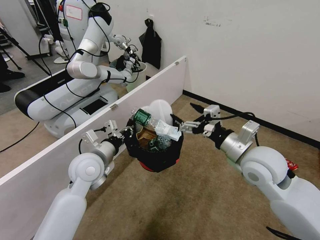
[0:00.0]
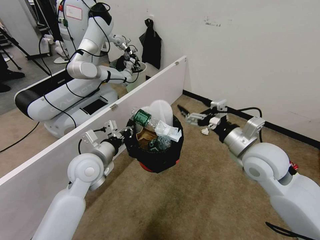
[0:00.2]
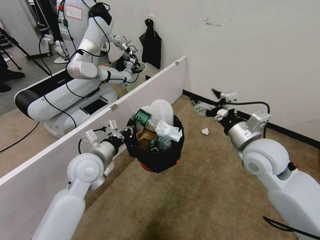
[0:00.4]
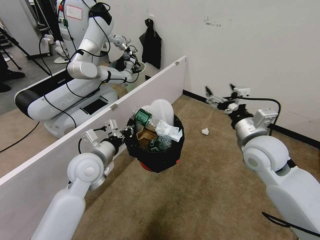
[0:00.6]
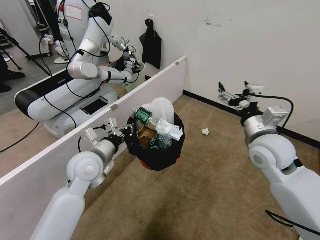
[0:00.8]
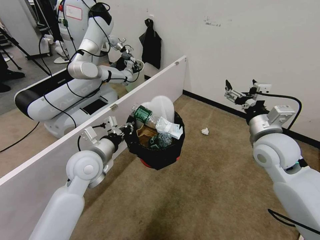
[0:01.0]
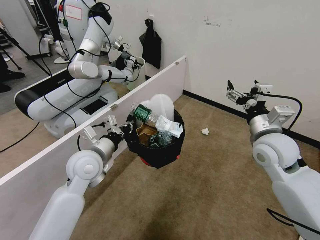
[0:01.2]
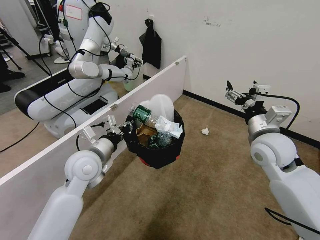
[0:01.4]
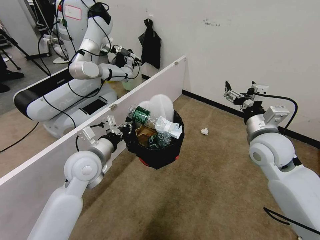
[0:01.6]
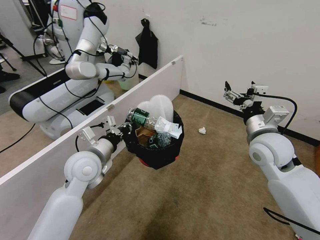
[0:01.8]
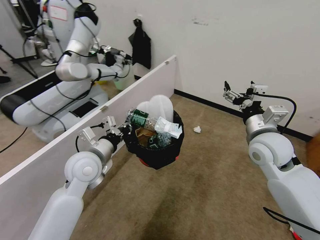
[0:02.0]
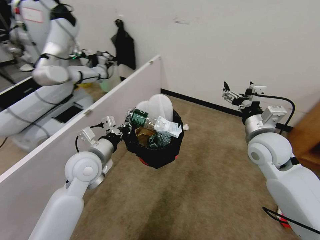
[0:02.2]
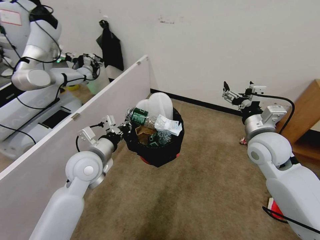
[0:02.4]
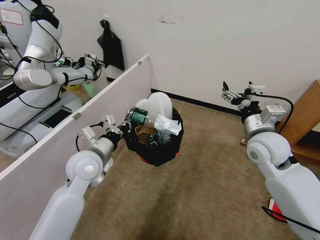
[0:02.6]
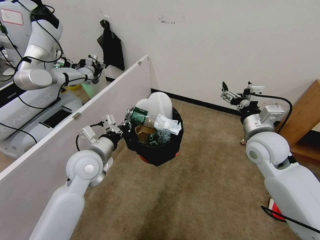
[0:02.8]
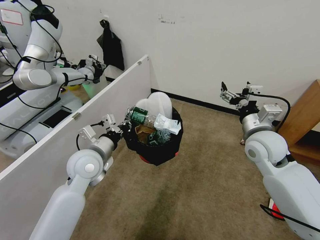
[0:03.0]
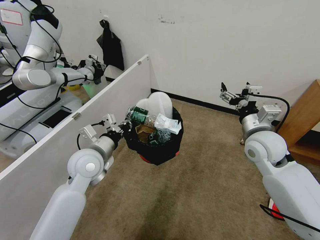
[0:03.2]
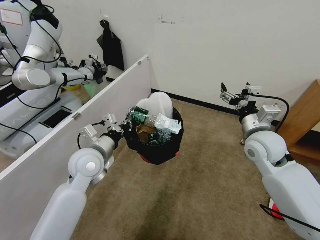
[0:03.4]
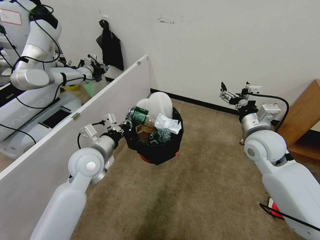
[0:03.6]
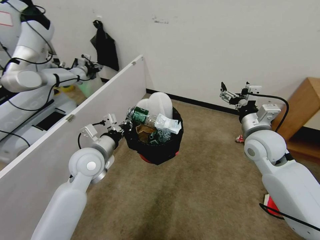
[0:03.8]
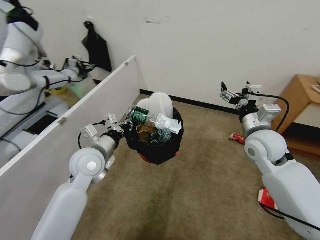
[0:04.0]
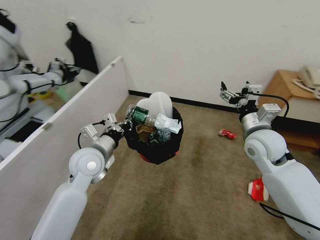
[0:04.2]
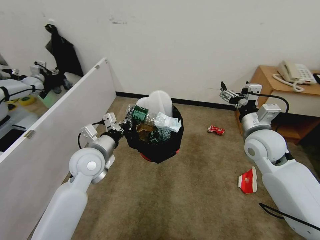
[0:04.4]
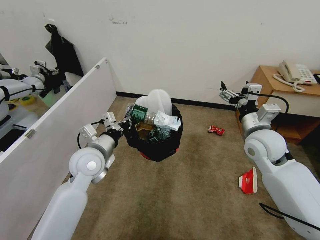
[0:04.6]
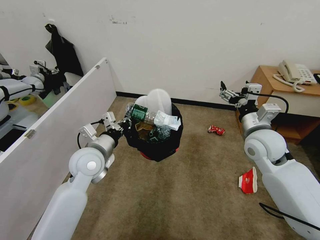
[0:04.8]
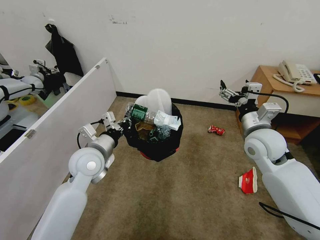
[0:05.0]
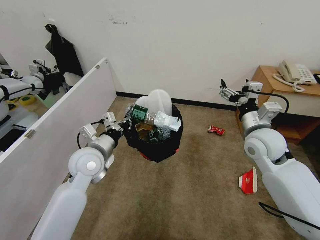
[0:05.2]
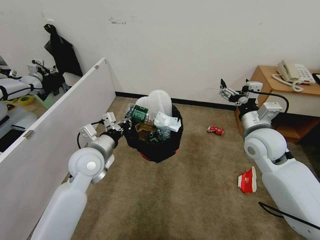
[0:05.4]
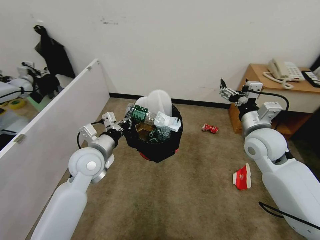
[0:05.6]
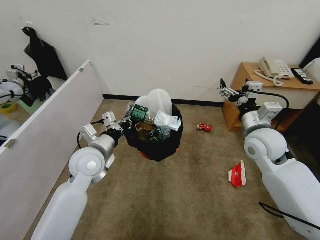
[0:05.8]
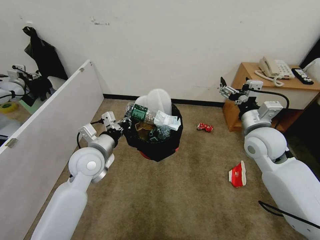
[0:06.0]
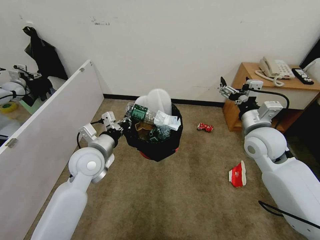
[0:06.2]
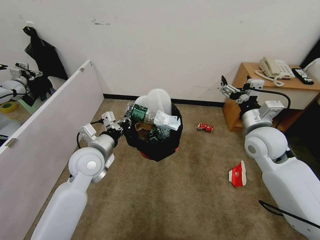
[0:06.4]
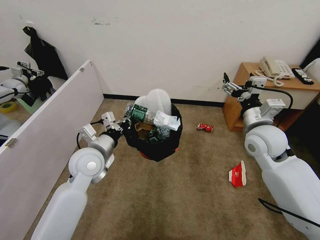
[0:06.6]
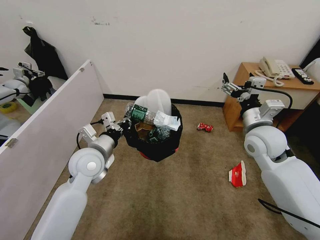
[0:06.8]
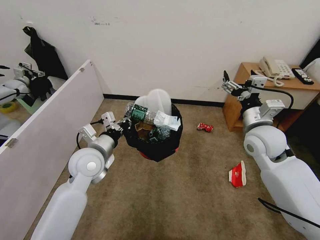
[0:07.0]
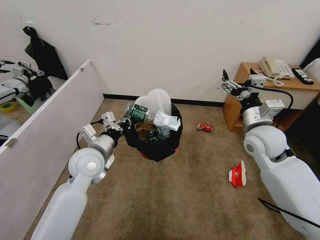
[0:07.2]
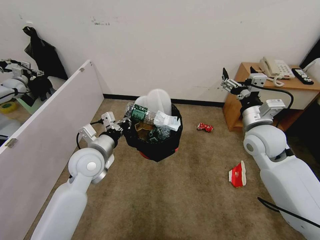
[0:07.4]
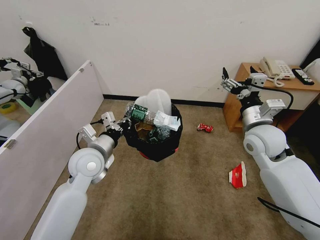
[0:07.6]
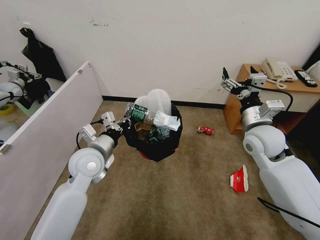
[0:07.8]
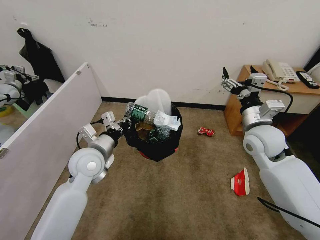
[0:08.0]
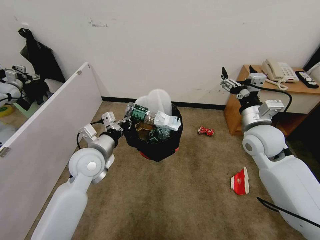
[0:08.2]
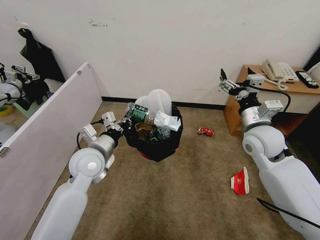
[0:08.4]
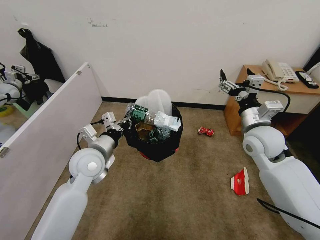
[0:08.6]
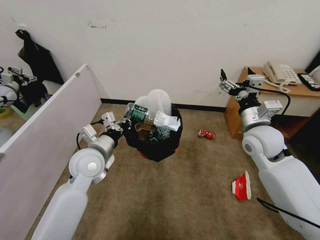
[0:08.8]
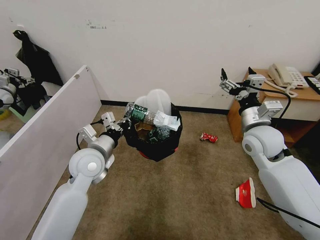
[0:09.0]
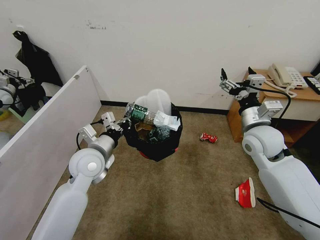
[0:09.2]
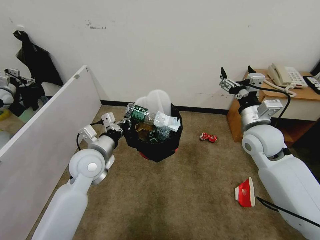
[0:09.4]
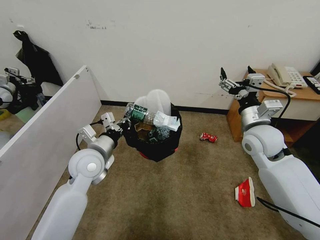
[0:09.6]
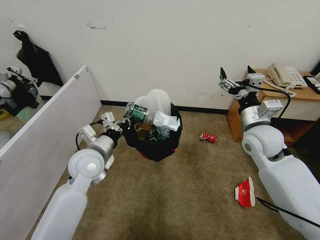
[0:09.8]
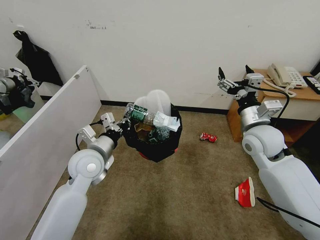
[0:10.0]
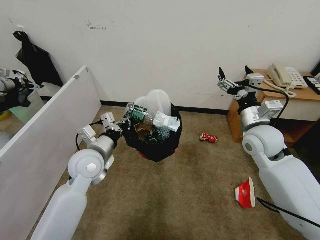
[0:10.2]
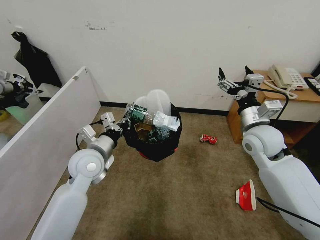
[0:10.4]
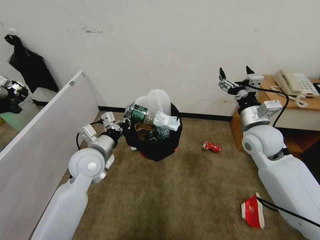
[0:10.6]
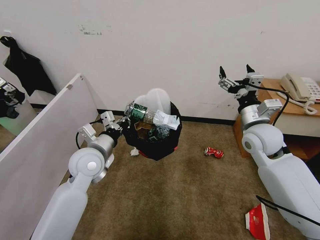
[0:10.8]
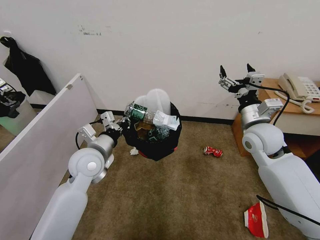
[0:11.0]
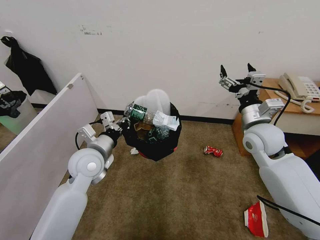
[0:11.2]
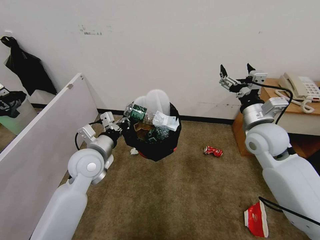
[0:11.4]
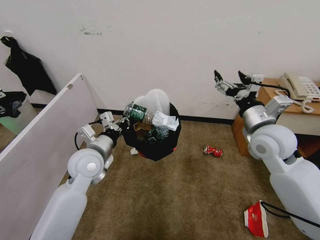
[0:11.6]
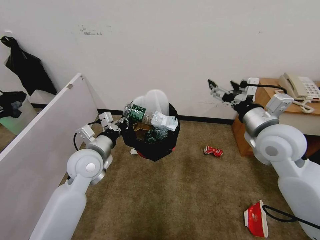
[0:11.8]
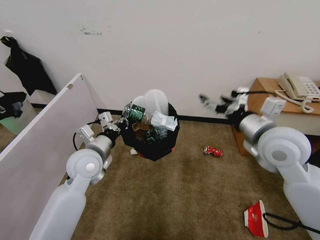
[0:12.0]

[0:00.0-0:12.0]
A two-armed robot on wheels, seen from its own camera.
Task of the whole recording: Pick up the trash bin, then pick up the garbage from the floor and place it into the trash bin.
0:00.0 to 0:01.6: The right gripper shifts by roughly 5 cm.
0:04.4 to 0:06.0: Neither gripper changes place.
0:06.0 to 0:07.6: The grippers make only small movements.
0:07.6 to 0:10.4: Neither gripper changes place.
0:10.4 to 0:12.0: The right gripper goes about 10 cm backward and upward.

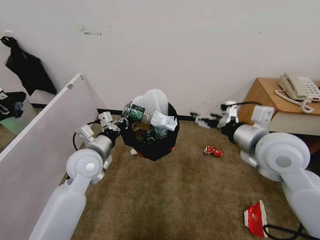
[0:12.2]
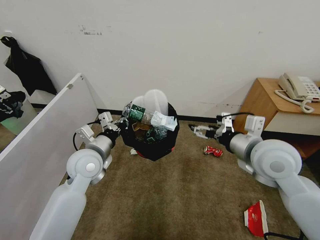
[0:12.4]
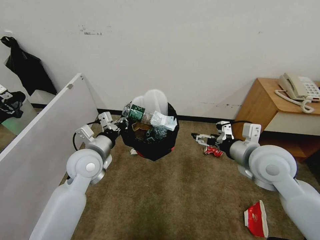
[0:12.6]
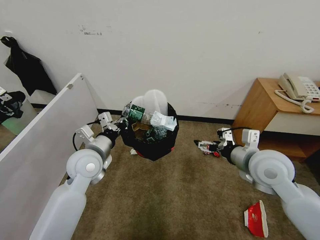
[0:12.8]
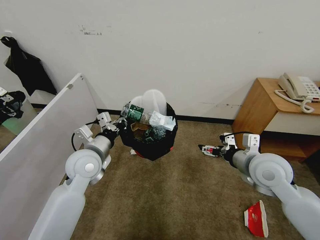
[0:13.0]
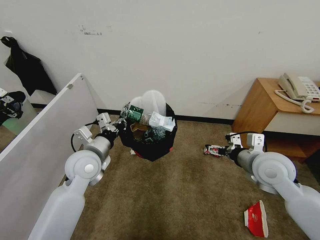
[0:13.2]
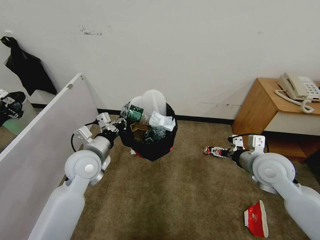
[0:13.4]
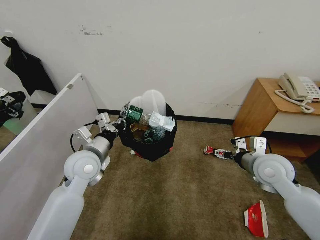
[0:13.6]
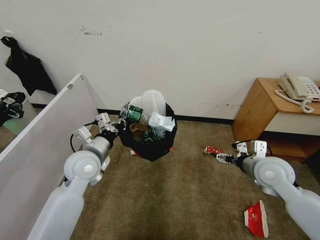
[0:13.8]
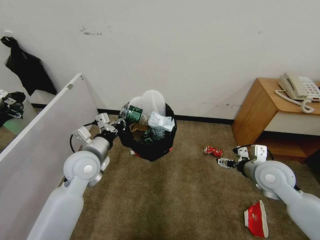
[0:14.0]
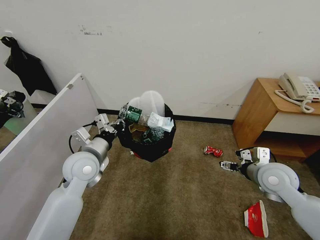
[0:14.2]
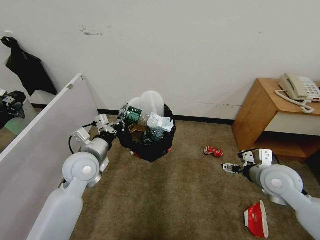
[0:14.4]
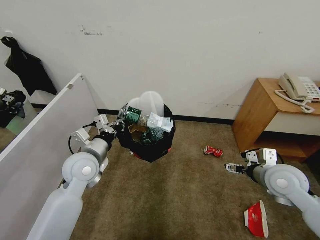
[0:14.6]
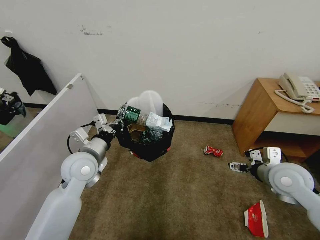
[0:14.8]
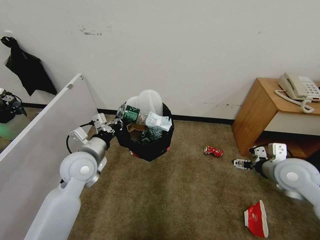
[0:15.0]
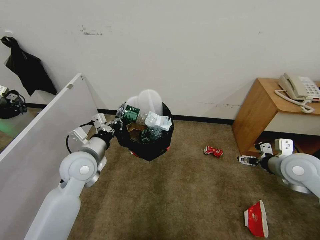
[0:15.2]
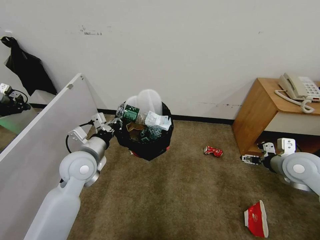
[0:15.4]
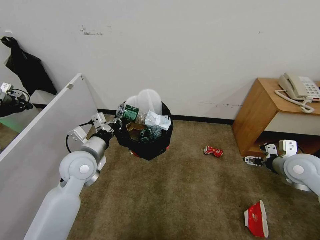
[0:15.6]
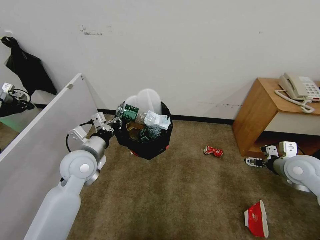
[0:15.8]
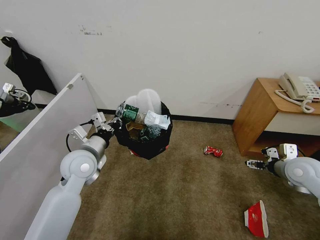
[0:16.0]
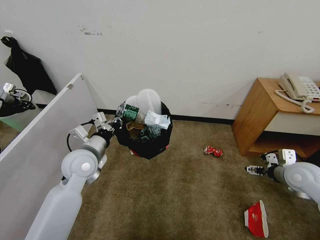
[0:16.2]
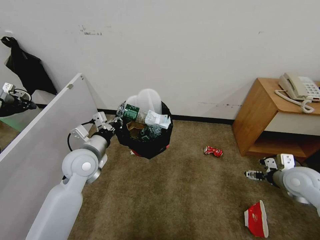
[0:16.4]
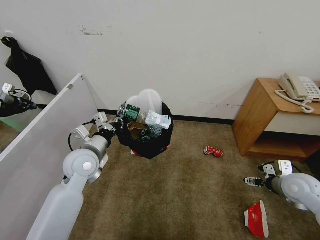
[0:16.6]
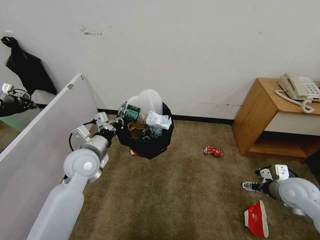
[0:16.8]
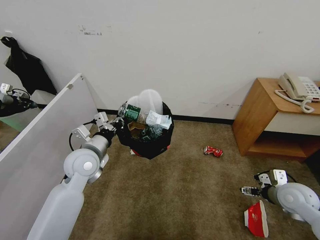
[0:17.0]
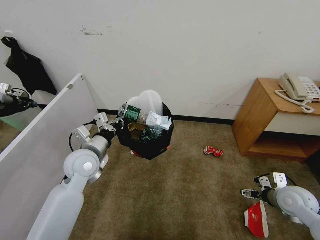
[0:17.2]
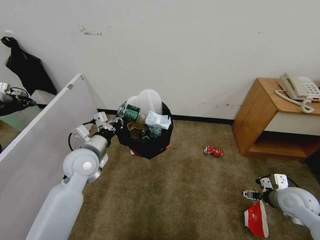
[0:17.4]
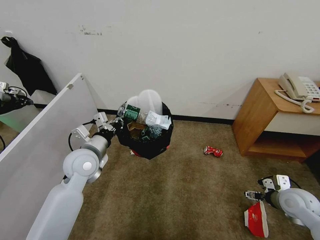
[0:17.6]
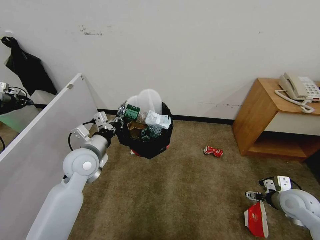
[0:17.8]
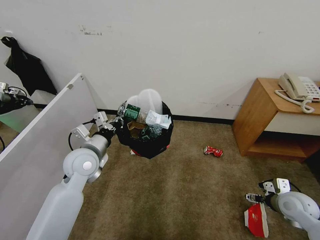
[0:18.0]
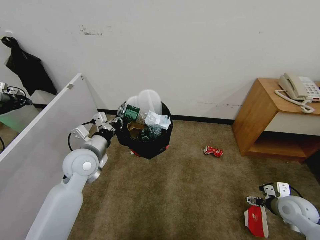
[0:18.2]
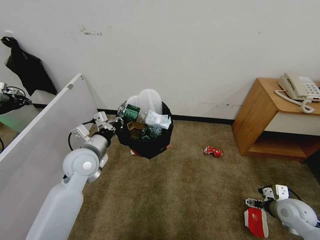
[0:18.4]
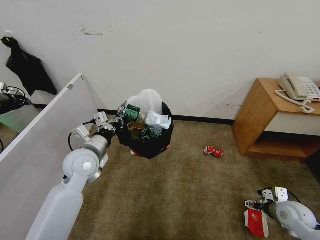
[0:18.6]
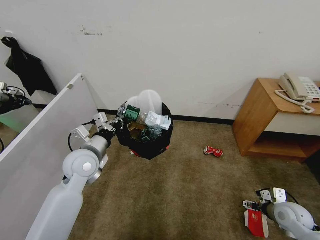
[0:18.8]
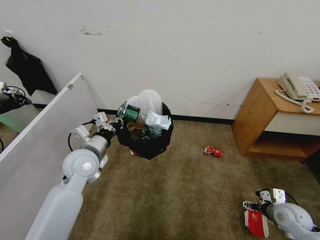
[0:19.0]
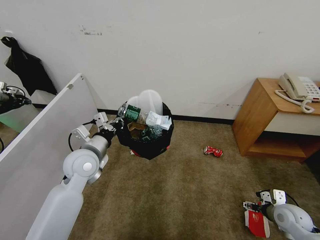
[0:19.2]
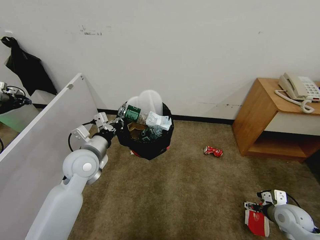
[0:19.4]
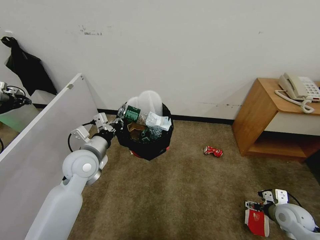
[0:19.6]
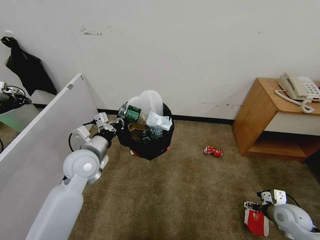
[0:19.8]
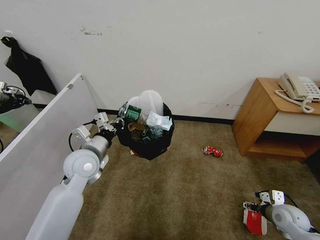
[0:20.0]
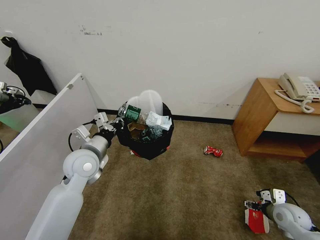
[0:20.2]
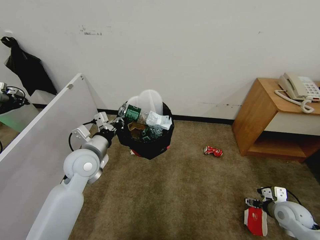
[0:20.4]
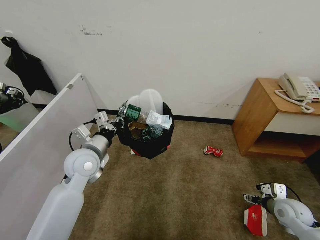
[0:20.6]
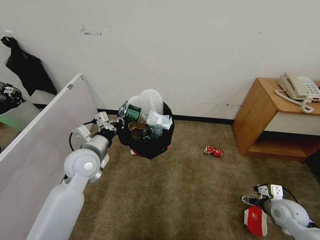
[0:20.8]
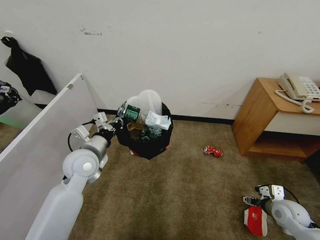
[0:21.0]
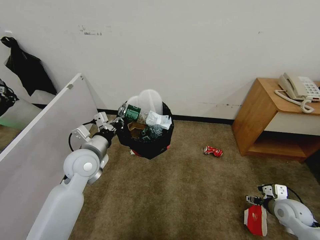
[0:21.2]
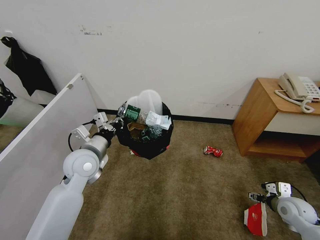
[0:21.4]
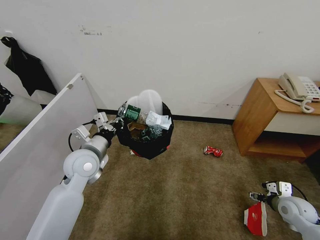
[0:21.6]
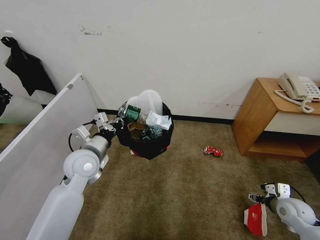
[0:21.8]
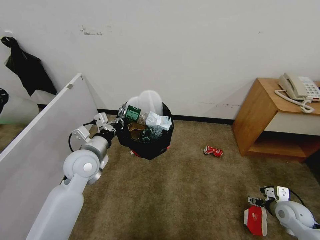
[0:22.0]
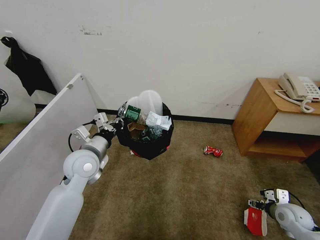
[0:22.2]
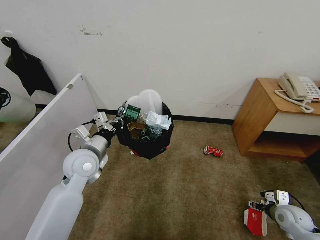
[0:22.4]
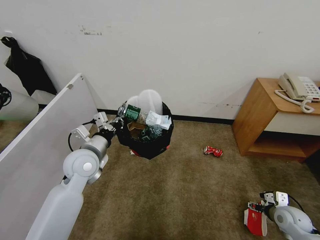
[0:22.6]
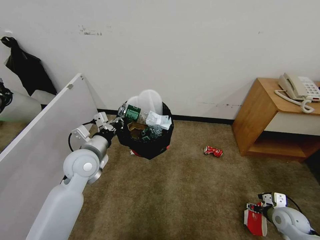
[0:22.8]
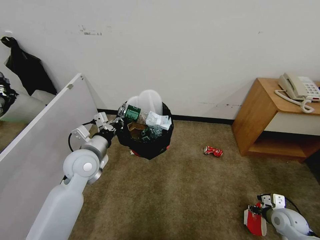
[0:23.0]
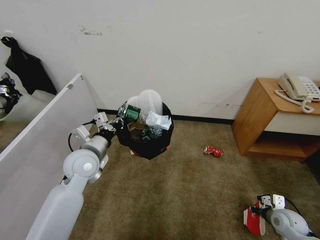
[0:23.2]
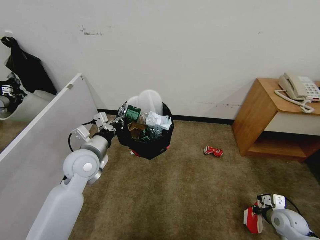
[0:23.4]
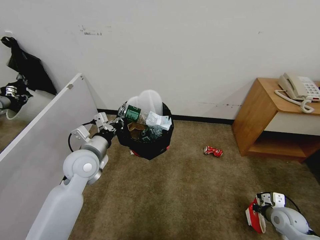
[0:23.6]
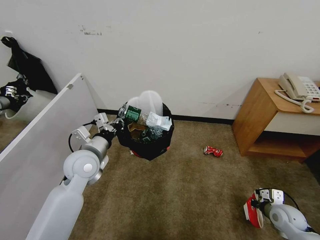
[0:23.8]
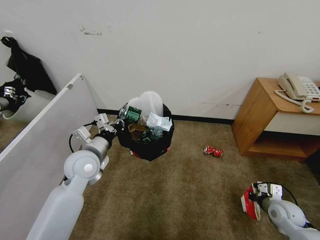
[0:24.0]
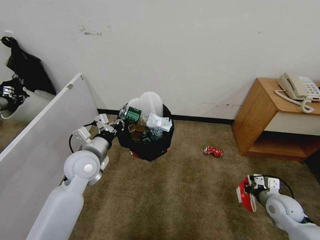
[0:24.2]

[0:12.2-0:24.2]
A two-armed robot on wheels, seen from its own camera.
Task of the whole recording: Pick up the trash bin, then pick up the garbage from the floor and place it into the trash bin.
0:12.2 to 0:13.8: The right gripper shifts about 15 cm downward and to the right.
0:13.8 to 0:15.2: The right gripper shifts roughly 5 cm to the right.
0:15.2 to 0:16.6: The right gripper moves downward, some 10 cm.
0:16.6 to 0:18.2: The right gripper goes some 5 cm downward.
0:18.2 to 0:19.8: The right gripper changes place by about 5 cm.
0:19.8 to 0:22.6: The grippers stay close to where they were, moving slightly.
0:22.6 to 0:24.2: The right gripper ends up some 5 cm from where it was, and closes.
